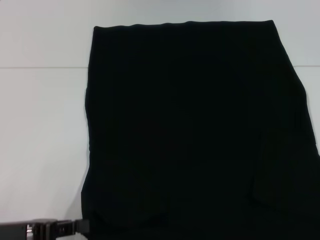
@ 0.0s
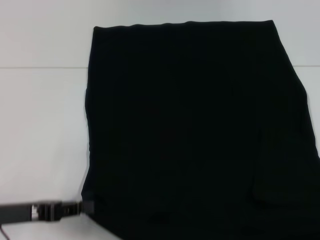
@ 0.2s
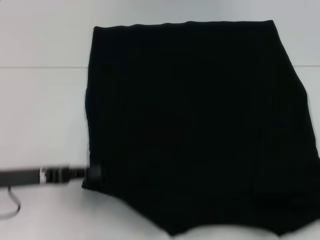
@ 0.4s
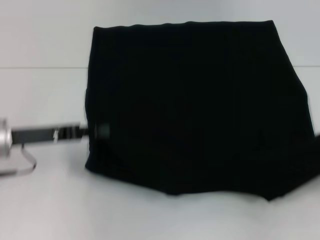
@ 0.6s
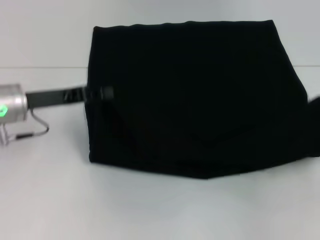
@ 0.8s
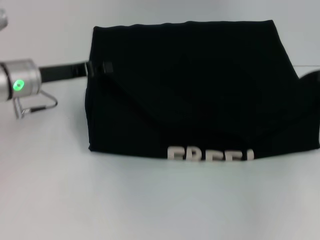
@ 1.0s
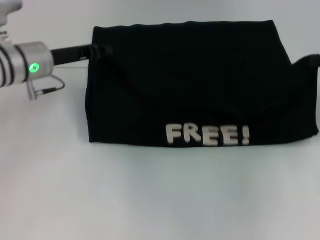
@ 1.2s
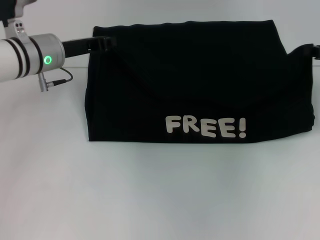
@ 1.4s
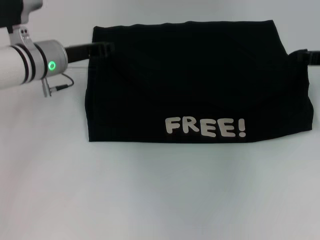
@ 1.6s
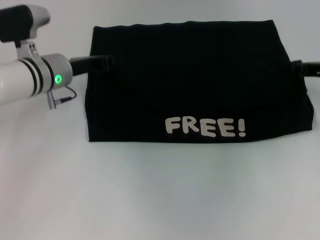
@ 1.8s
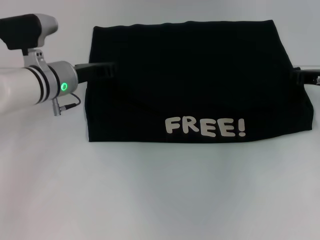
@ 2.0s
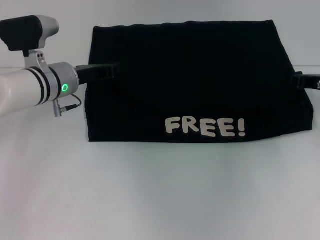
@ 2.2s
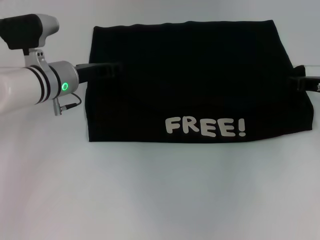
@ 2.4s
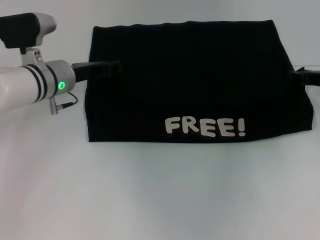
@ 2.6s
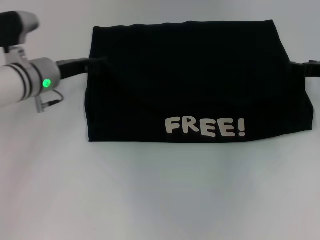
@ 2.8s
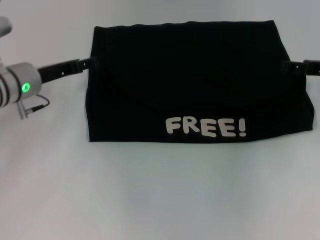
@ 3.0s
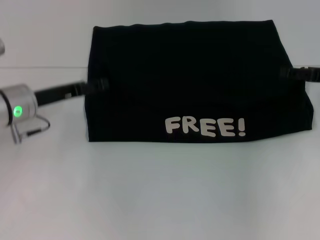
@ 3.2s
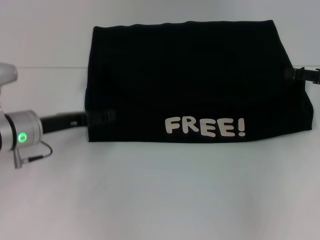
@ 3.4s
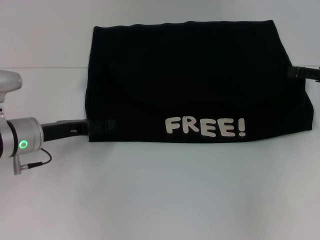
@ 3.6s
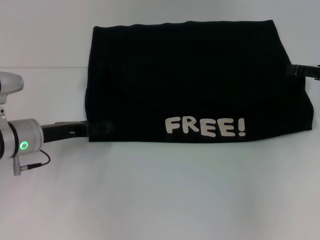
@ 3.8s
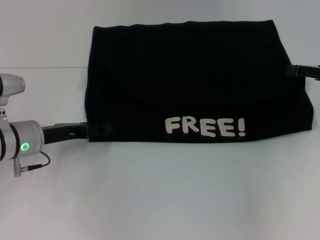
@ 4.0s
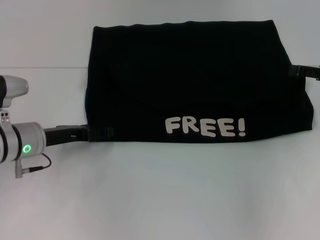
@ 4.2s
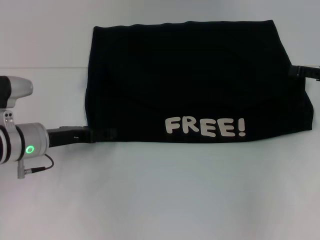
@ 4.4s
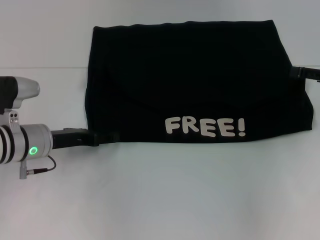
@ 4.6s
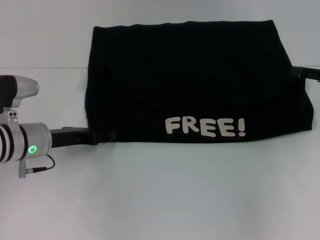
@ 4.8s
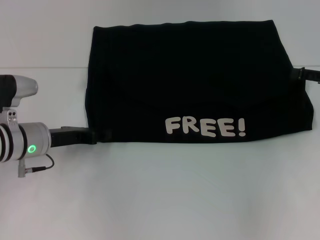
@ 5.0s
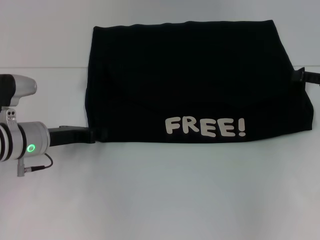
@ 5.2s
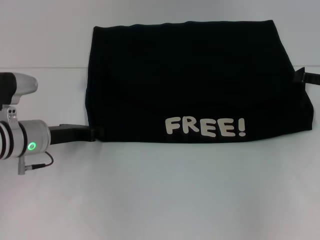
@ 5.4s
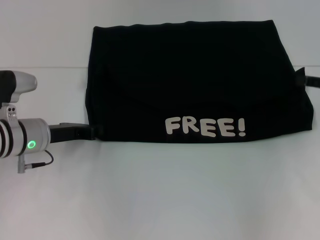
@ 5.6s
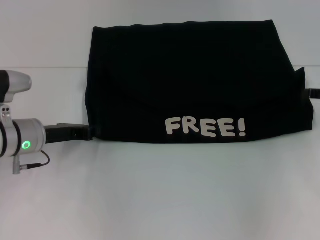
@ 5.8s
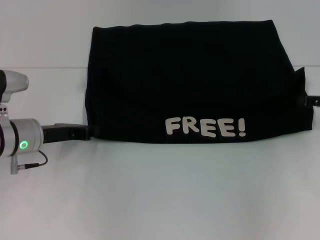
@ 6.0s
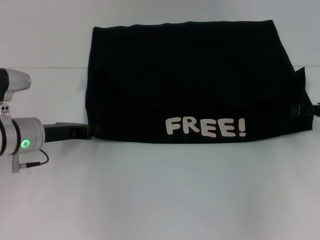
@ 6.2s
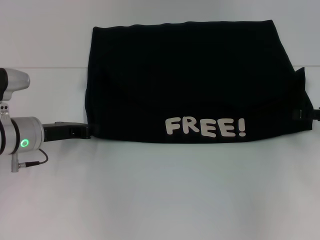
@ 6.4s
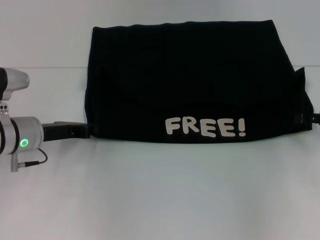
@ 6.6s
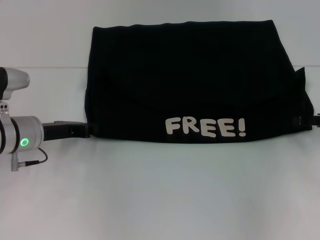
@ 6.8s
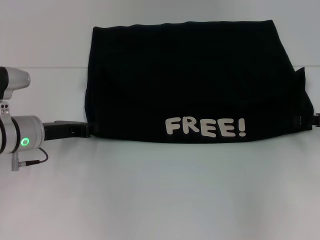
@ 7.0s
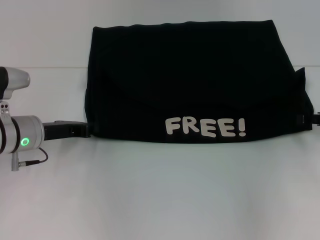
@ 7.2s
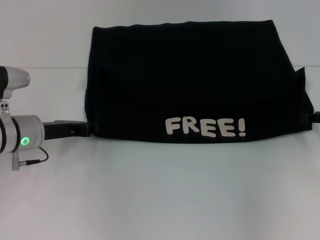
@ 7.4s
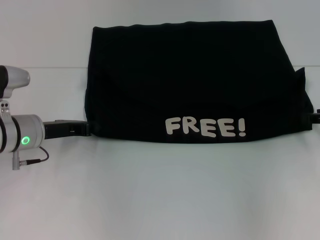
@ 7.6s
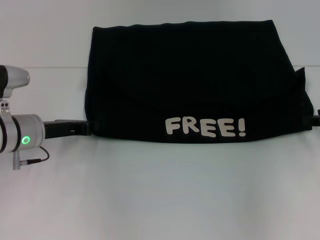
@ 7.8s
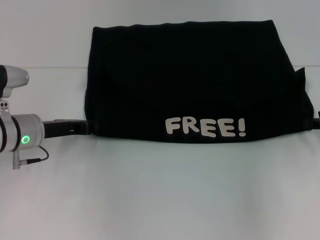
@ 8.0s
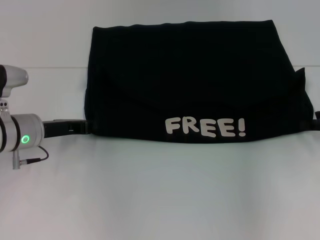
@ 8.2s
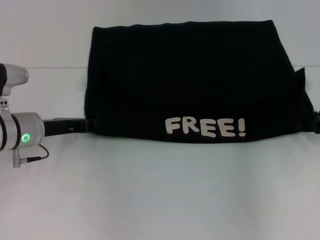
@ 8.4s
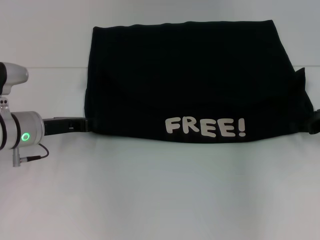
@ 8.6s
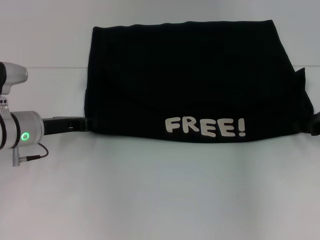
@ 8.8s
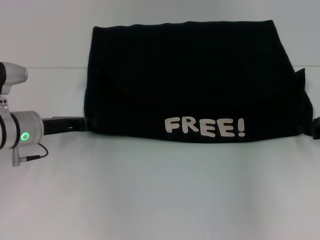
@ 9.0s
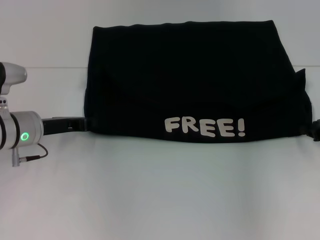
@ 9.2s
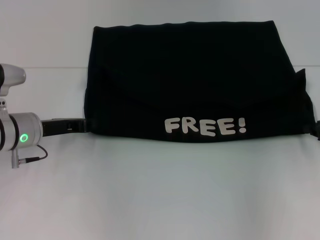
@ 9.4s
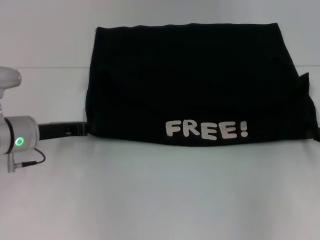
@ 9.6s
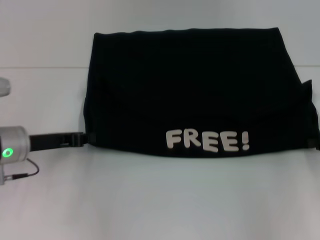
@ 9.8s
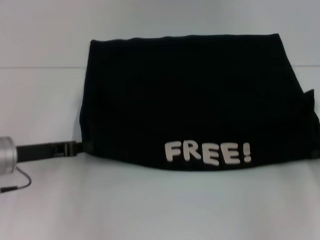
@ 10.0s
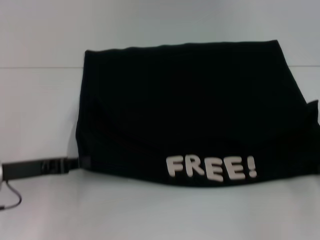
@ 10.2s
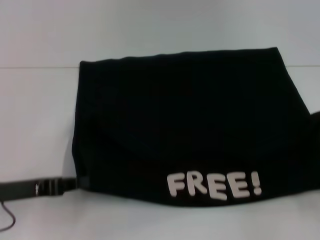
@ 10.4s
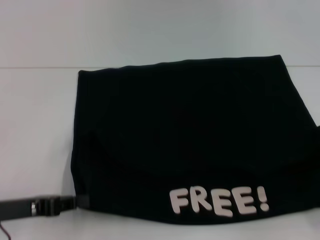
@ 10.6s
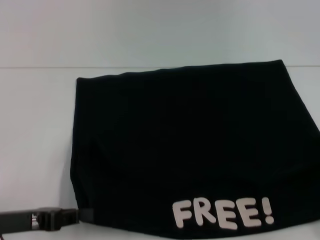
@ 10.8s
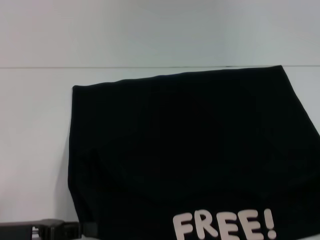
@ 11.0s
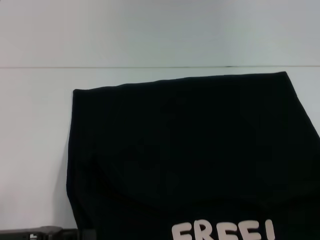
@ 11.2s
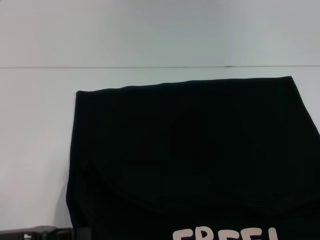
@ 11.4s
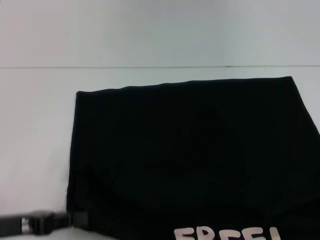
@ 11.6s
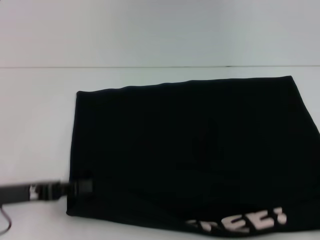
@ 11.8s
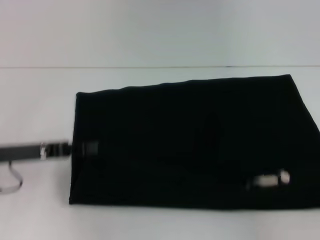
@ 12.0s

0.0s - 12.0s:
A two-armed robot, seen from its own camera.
Step, 0.0s - 2.6s: Fold the clothes with your left hand.
Step, 0.0s - 2.6s: Fold the clothes with your right hand.
Step, 2.8s - 11.2s: Pull the clothes with your left hand.
Step, 2.8s - 11.2s: Pull the clothes with your right hand.
0.0s - 1.6s: The left gripper is displaced forward by some 25 cm; the right gripper heads forward and to the left, covering some 30 cm.
1.6s - 3.0s: The left gripper moves approximately 5 cm, and opens its fingers. Meanwhile the right gripper opens.
3.0s - 4.4s: The left gripper moves backward and downward, approximately 10 cm.
4.4s - 6.0s: The left gripper closes its fingers.
6.0s - 7.6s: The grippers move only a little.
7.6s - 9.0s: The grippers make only small movements.
9.0s - 10.4s: The right gripper is displaced backward and to the right by about 15 cm, and closes; the left gripper goes some 10 cm backward.
10.4s - 12.0s: The right gripper moves roughly 10 cm backward and comes back. Meanwhile the left gripper reaches roughly 5 cm backward, then returns.

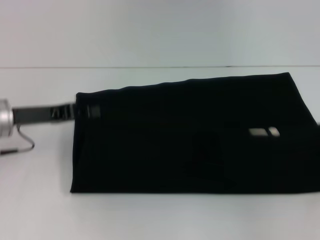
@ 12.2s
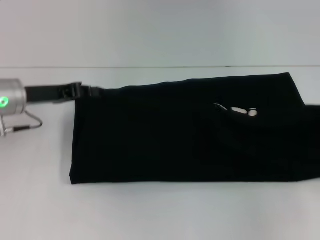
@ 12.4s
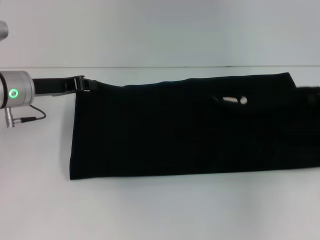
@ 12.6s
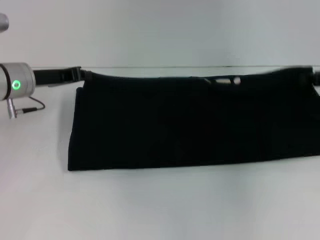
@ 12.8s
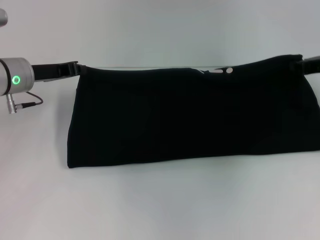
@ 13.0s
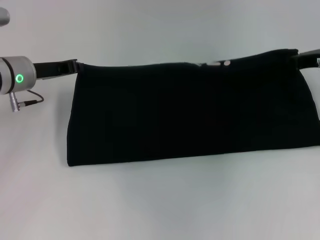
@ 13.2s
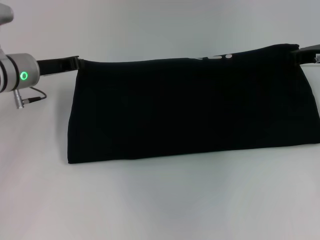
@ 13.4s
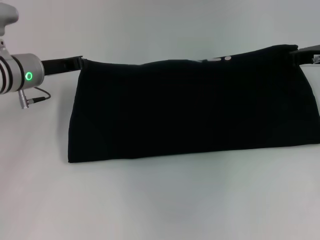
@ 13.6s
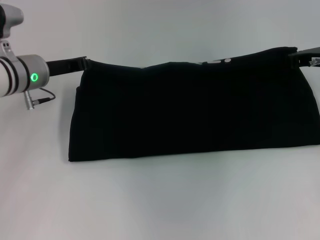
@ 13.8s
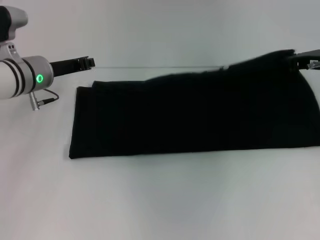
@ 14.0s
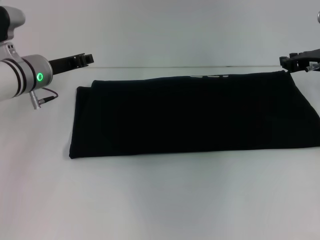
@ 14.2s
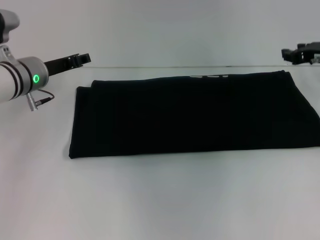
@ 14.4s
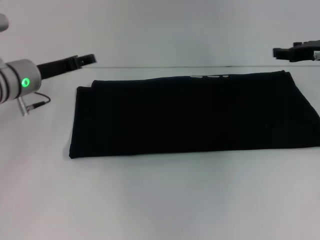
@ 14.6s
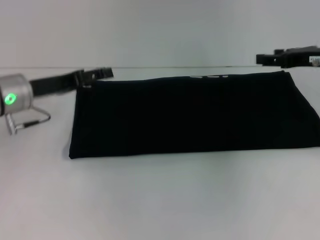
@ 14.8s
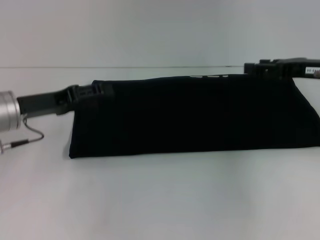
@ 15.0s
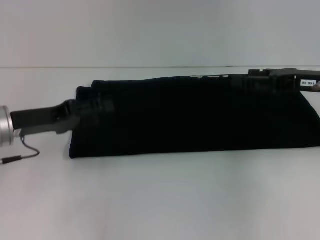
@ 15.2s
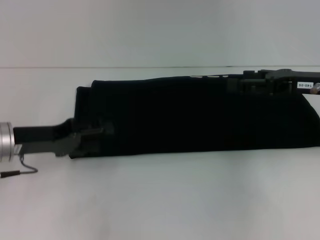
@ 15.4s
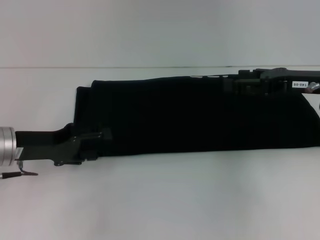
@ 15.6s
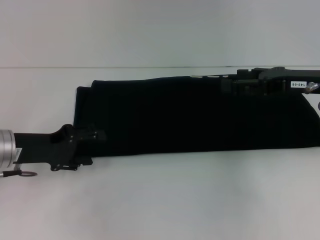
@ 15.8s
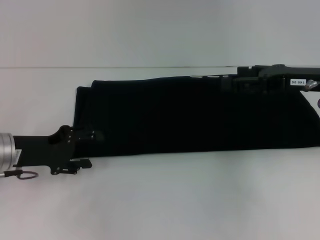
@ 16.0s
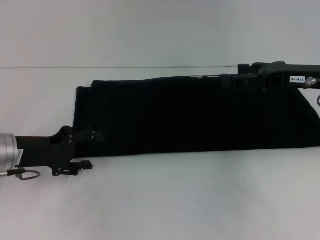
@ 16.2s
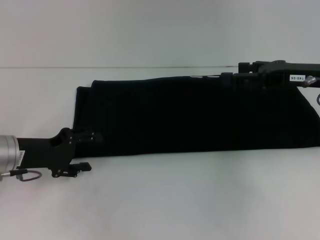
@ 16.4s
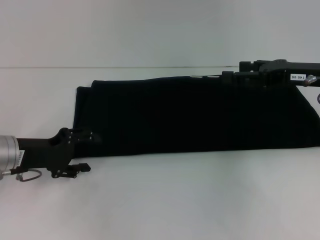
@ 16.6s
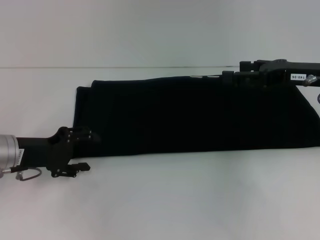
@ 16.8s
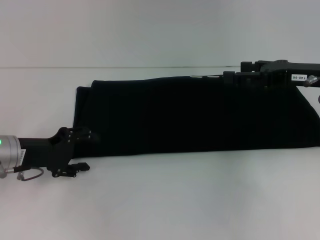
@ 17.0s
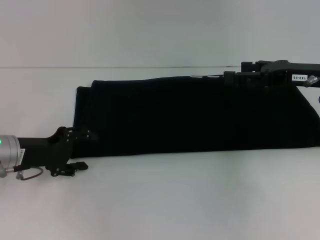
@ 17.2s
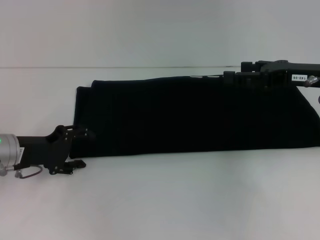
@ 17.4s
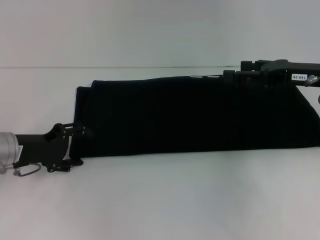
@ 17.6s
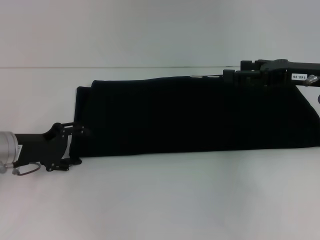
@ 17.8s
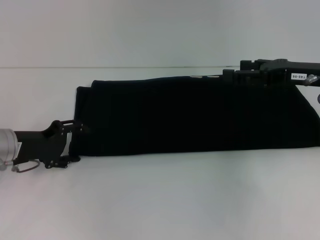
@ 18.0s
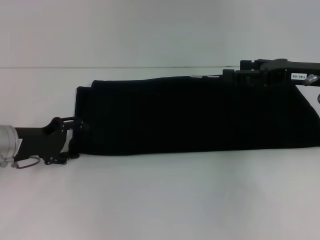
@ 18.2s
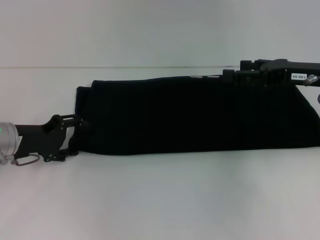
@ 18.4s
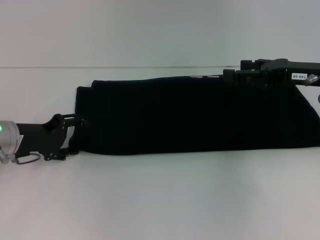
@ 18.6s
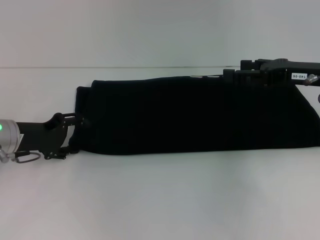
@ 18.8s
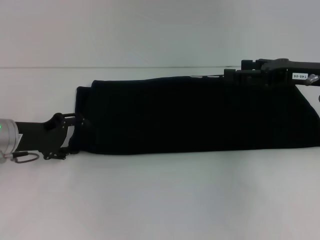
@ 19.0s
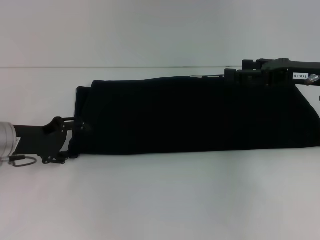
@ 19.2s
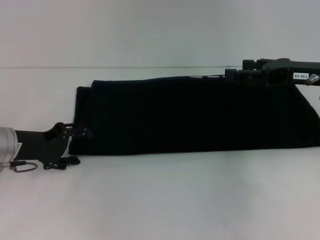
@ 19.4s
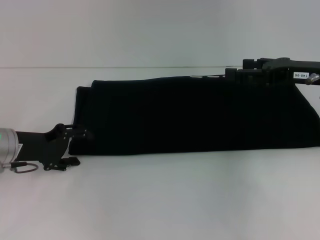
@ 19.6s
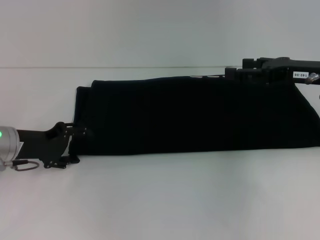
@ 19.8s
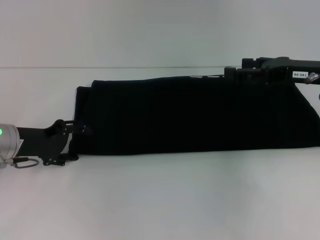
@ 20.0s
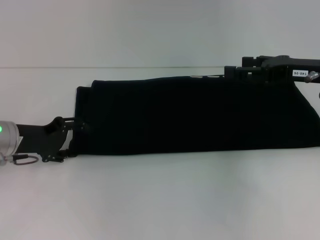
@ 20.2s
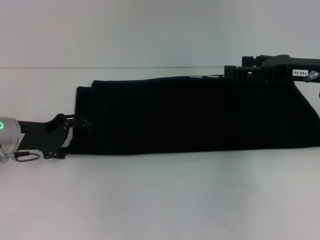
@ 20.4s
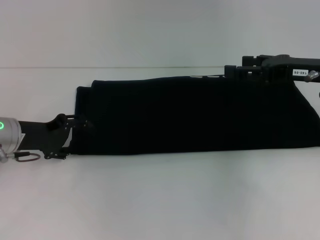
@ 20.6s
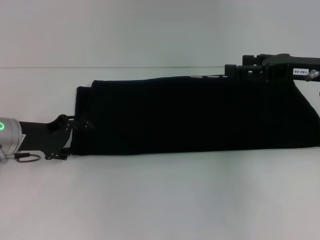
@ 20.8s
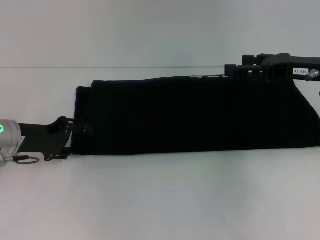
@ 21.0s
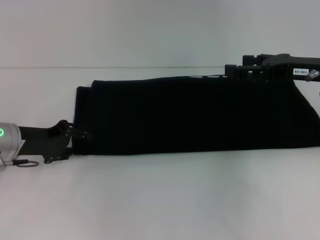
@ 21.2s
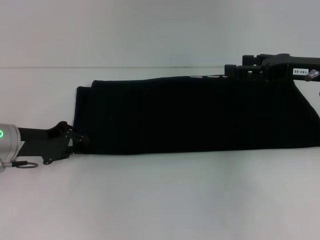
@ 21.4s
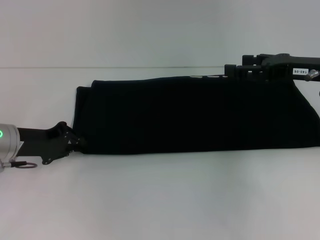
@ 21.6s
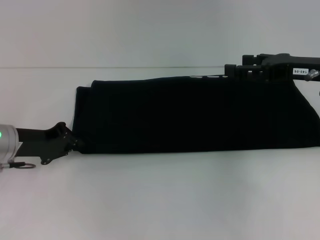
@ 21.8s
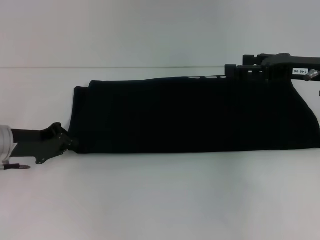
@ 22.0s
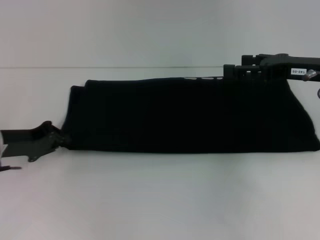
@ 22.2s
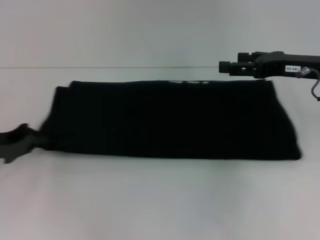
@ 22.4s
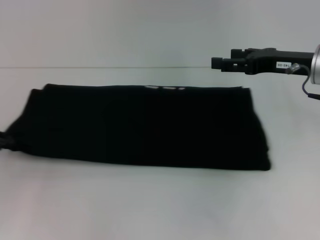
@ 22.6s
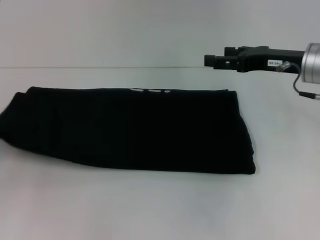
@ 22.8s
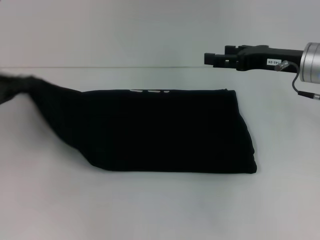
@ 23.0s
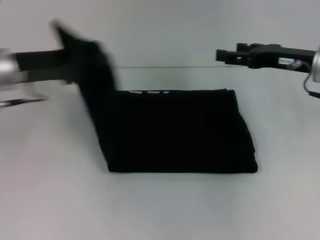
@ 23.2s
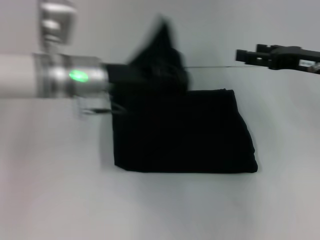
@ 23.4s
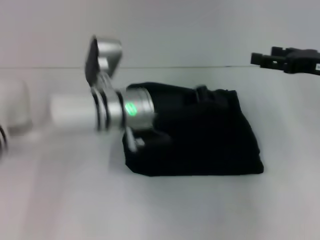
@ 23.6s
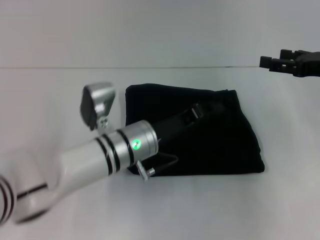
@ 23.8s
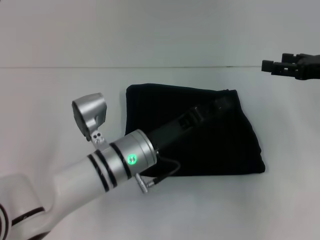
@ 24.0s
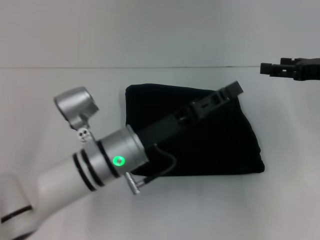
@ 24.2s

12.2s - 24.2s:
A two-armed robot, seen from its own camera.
Step, 12.2s - 14.2s: Fold the clothes with your right hand.
Step, 12.2s - 23.8s: Fold the clothes with your left hand.
12.2s - 13.8s: The left gripper travels forward by roughly 10 cm; the right gripper shifts roughly 20 cm forward and to the left.
13.8s - 15.2s: Both grippers travel together backward, roughly 10 cm. The left gripper opens its fingers, while the right gripper opens up.
16.6s - 21.2s: There are only small adjustments of the grippers.
21.2s - 22.6s: The left gripper goes about 10 cm to the left, and closes its fingers.
22.6s - 24.2s: The right gripper shifts some 5 cm to the right, while the left gripper goes approximately 30 cm to the right.
